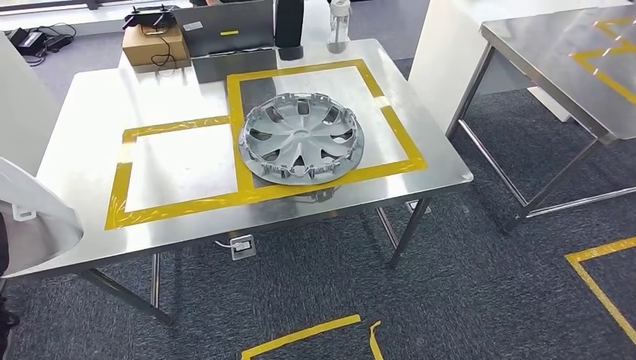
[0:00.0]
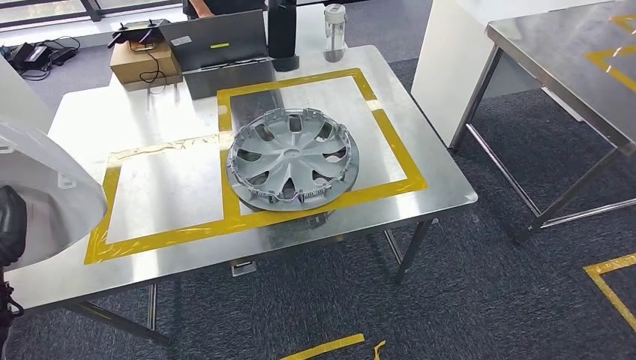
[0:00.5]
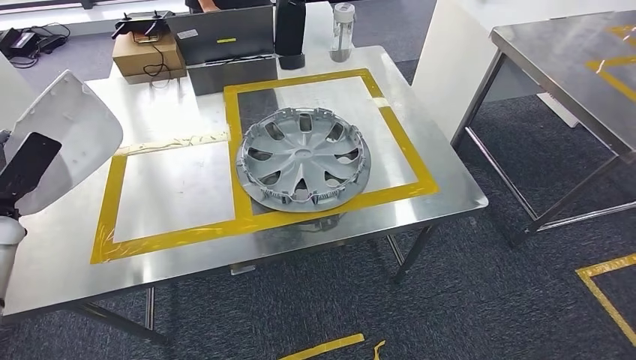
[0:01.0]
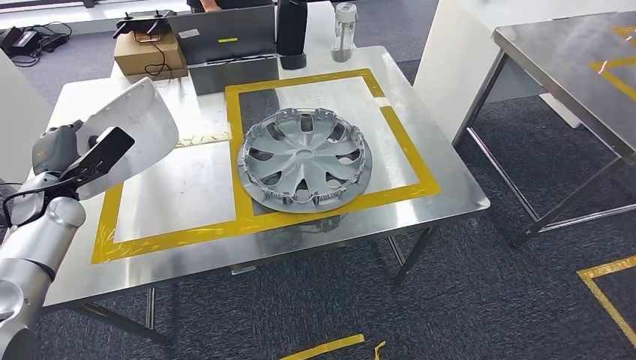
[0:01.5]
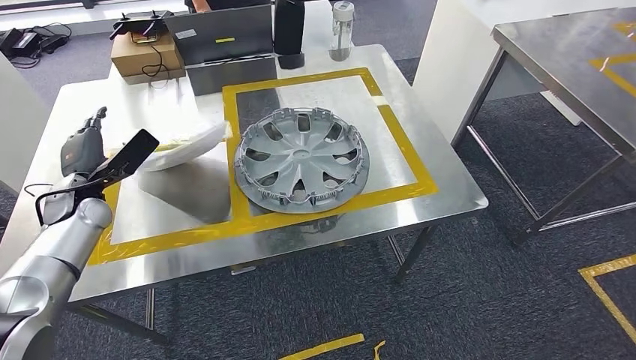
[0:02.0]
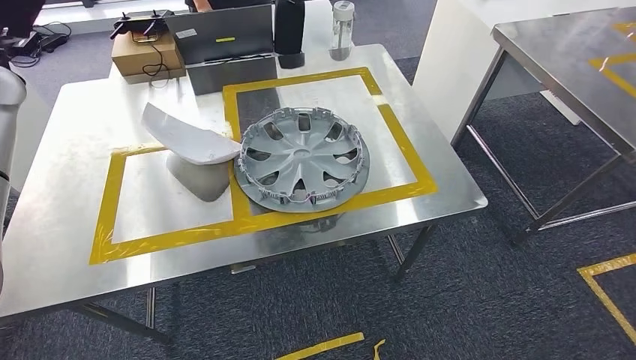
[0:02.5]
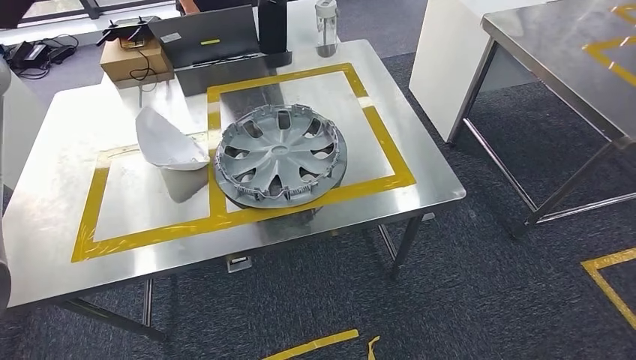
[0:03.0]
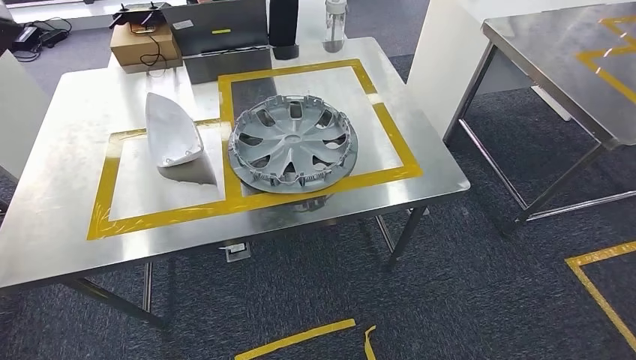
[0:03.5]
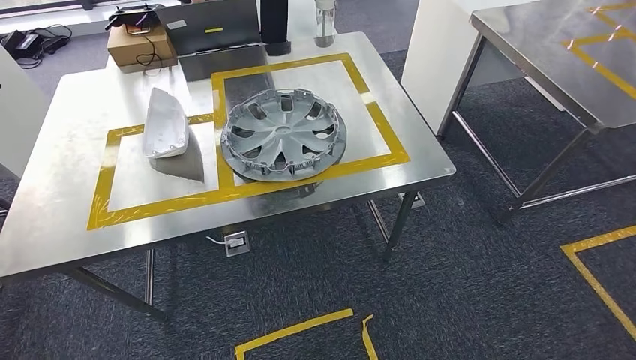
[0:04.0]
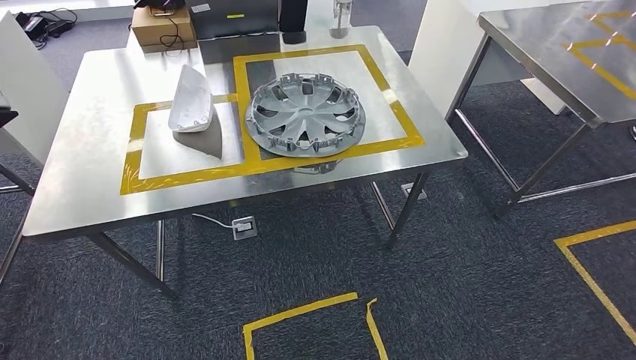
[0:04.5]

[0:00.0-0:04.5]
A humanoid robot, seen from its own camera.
Step, 0:00.0 to 0:03.0: Insert the small component into the corresponding slot on the workbench.
Step, 0:04.0 to 0:04.5: Return to the initial position at the workbench.
